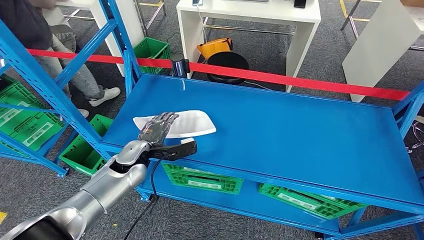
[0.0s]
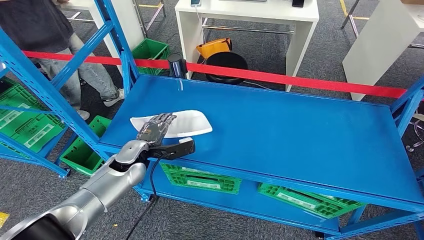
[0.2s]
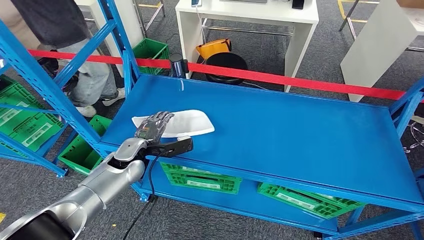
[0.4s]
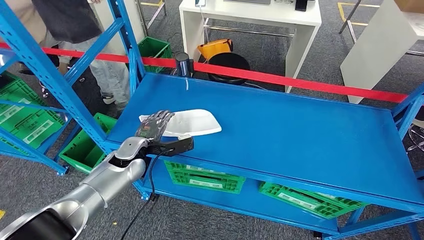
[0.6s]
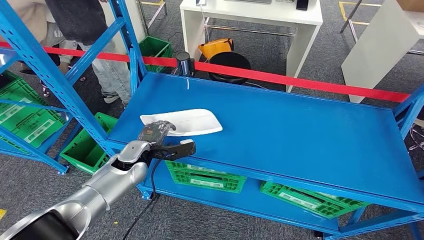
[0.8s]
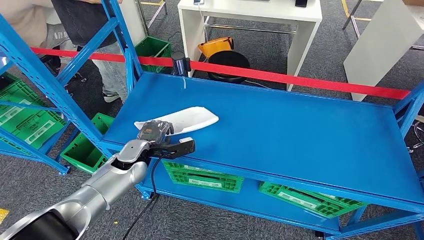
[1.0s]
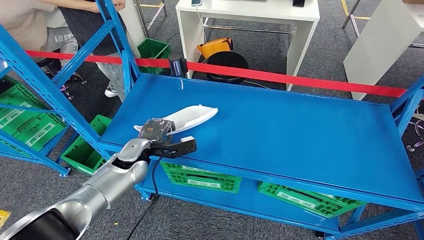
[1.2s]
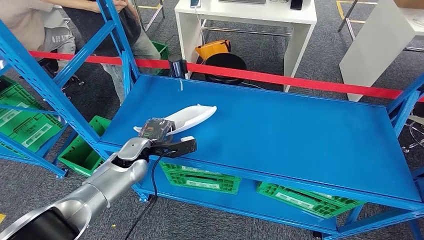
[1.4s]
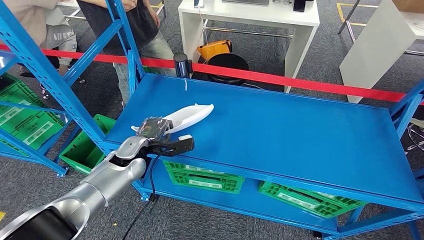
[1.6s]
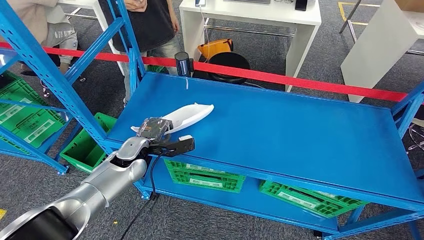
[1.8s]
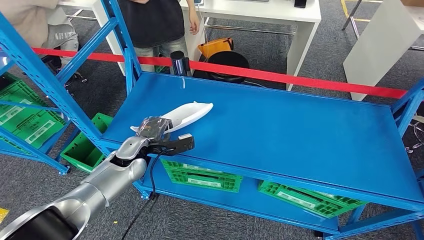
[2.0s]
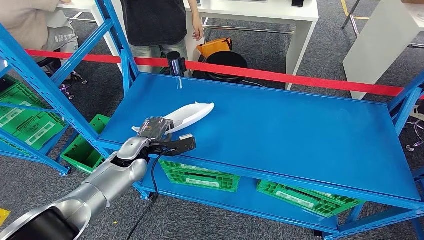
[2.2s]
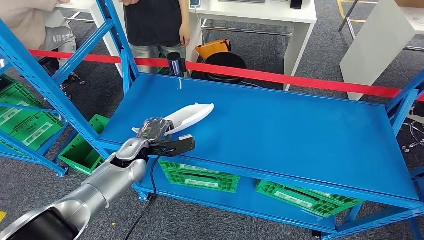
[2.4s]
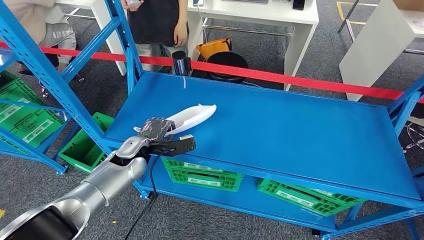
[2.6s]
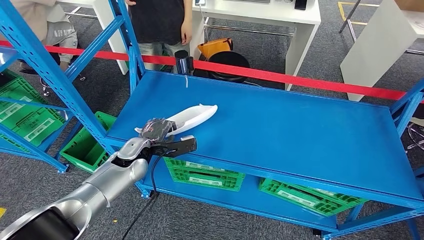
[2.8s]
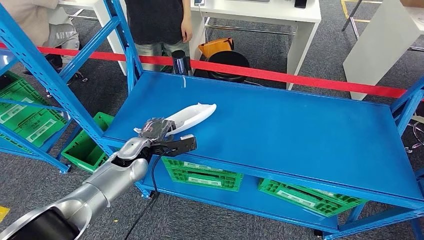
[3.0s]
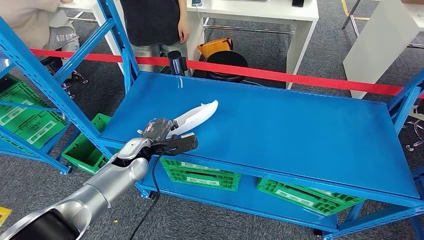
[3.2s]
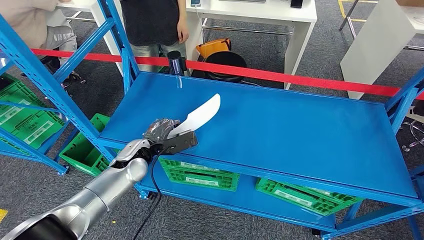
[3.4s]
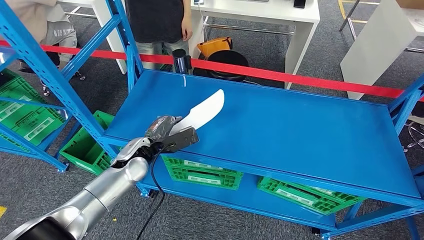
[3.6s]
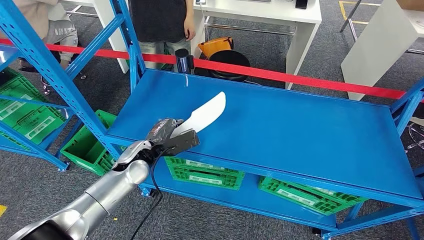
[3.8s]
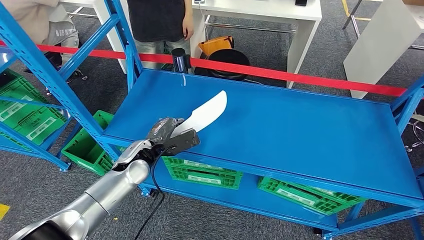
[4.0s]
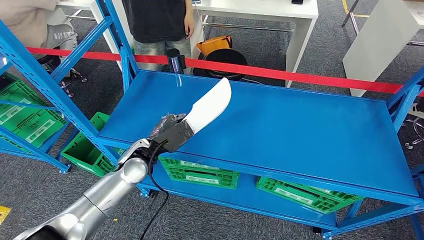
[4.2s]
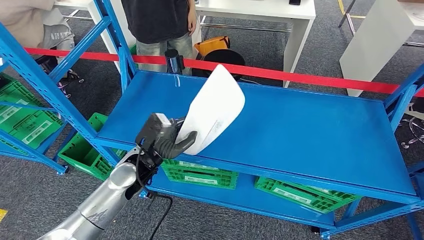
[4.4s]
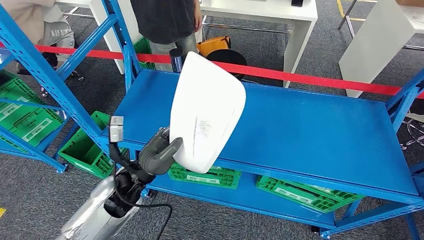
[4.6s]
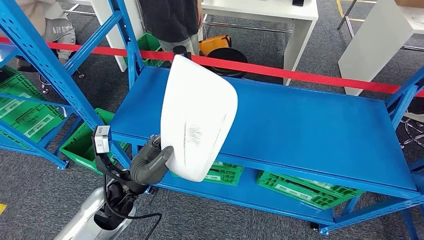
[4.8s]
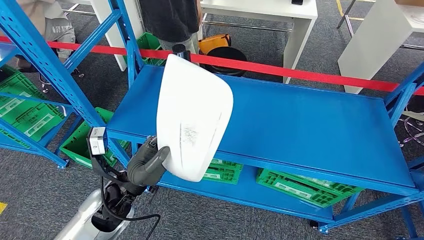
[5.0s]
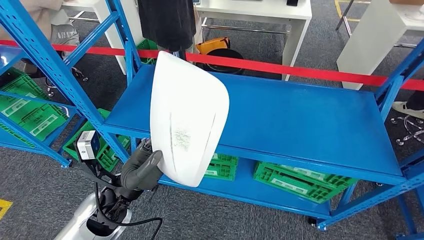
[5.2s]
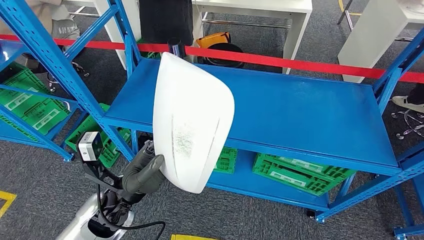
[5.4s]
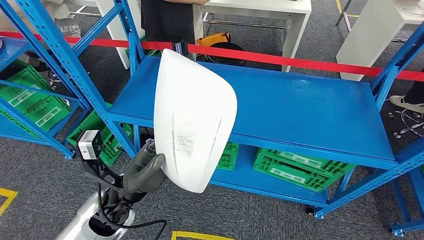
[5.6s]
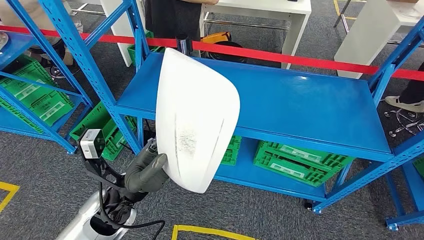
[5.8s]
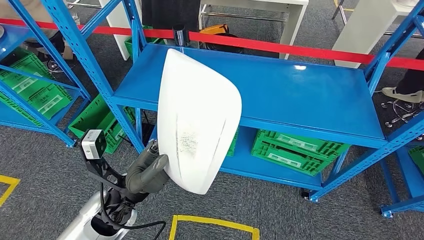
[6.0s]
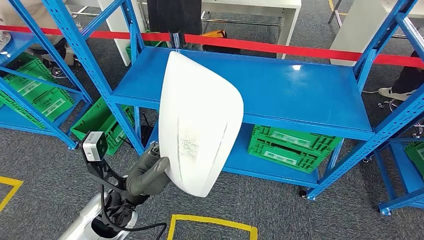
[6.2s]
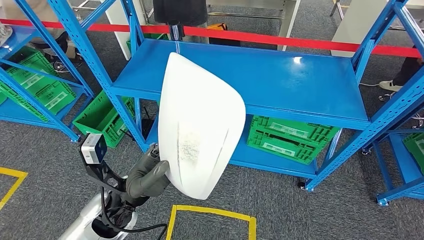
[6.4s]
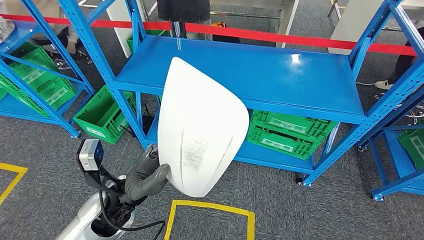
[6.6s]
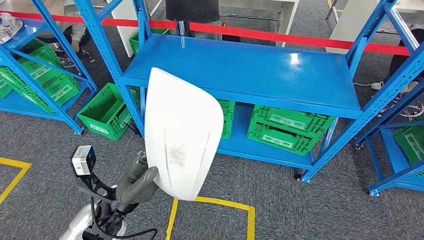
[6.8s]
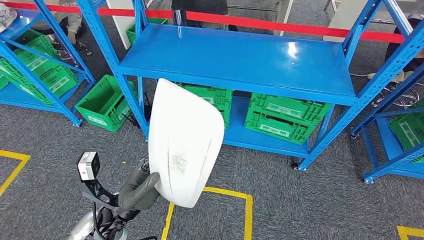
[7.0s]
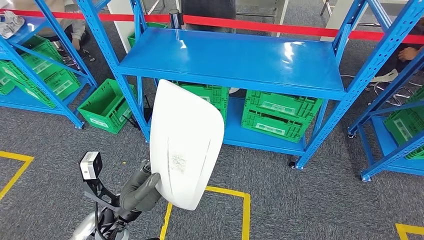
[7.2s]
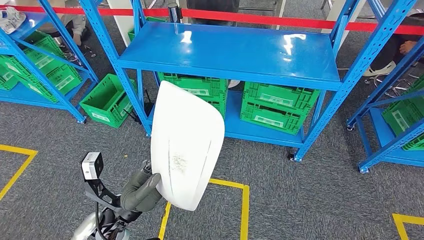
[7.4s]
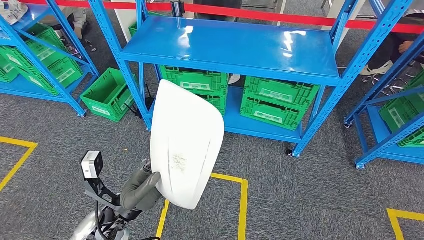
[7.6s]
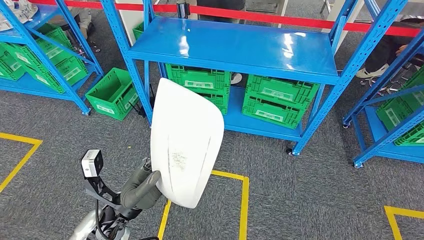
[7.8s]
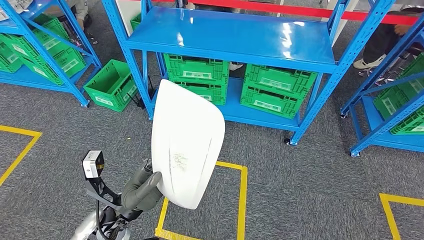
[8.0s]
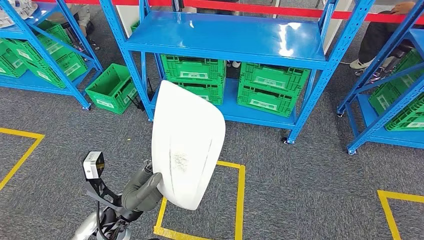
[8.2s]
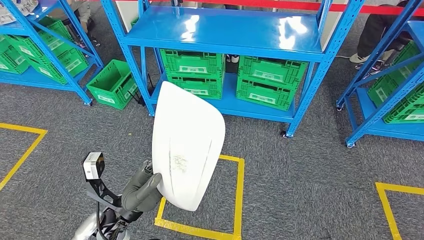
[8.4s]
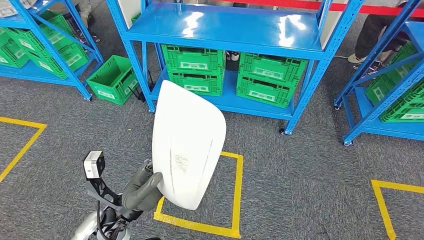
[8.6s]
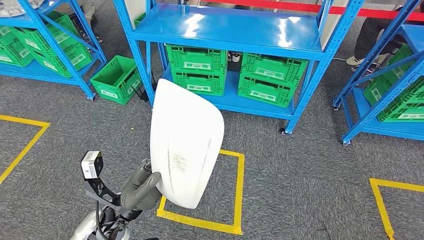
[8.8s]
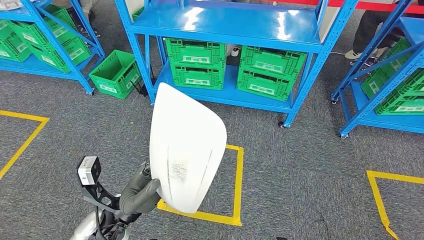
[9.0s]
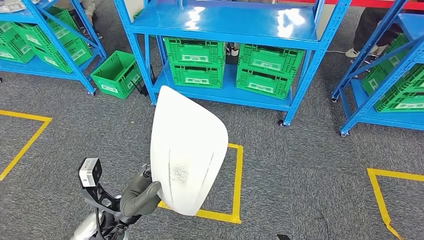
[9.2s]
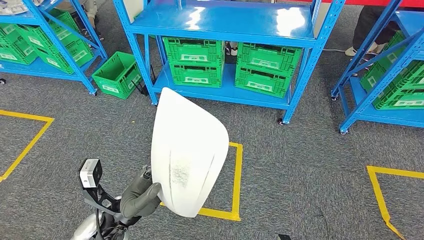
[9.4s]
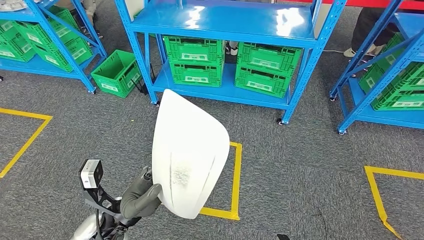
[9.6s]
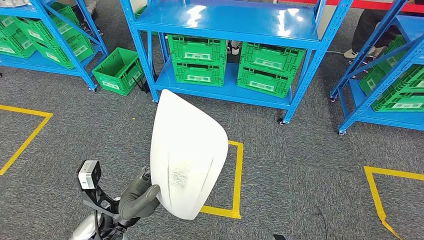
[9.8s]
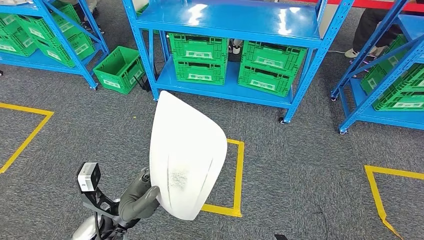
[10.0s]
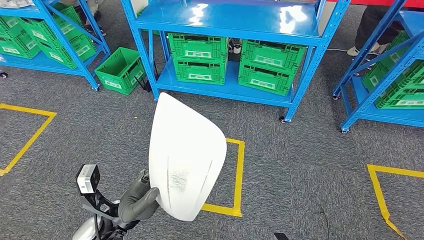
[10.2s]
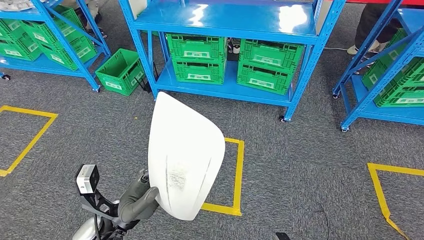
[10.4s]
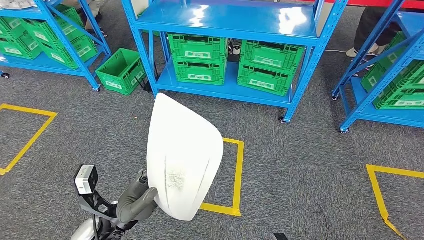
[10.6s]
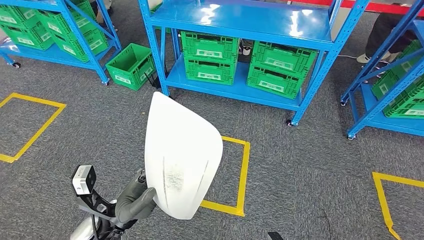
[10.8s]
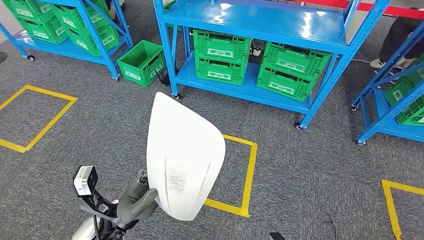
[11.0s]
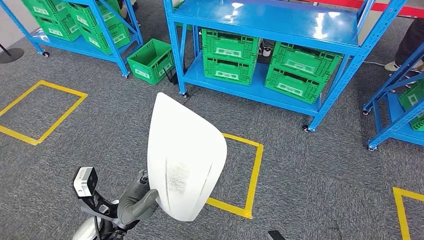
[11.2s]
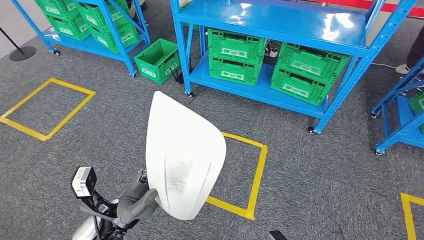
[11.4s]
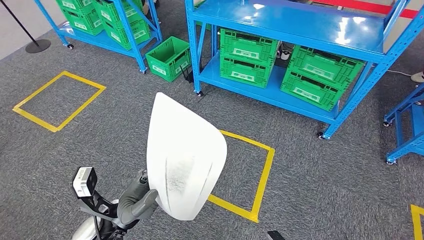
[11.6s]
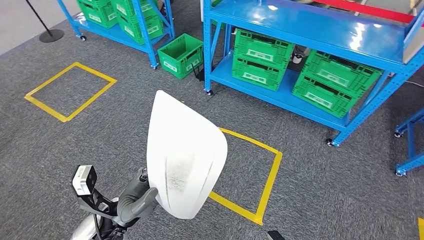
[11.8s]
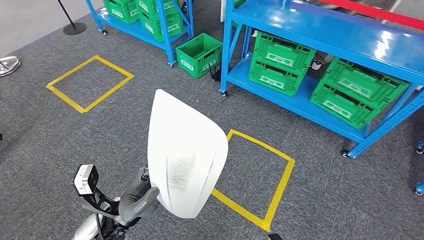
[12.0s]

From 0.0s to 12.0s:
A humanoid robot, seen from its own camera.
Step, from 0.0s to 4.8s: Pick up the small component from the shelf.

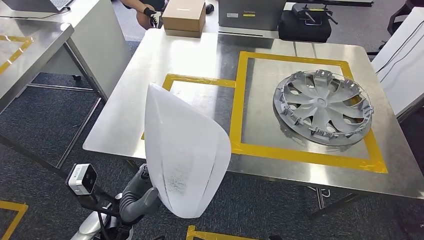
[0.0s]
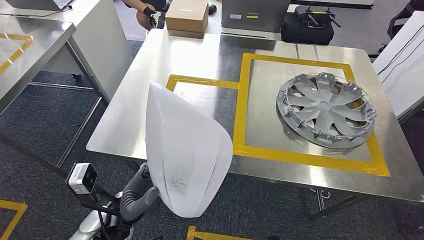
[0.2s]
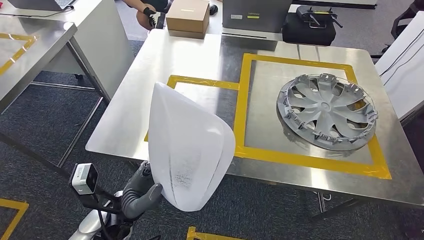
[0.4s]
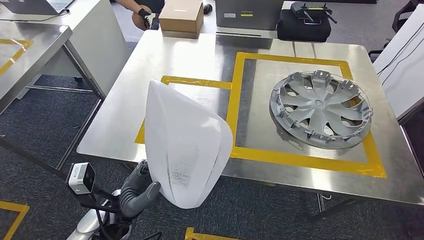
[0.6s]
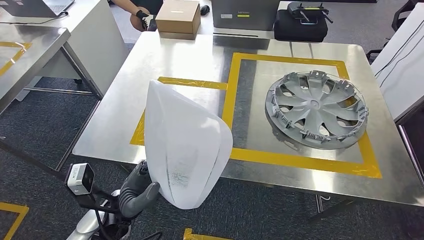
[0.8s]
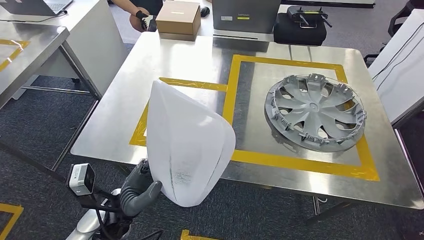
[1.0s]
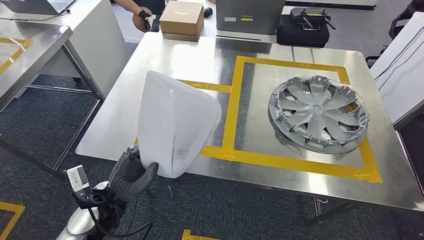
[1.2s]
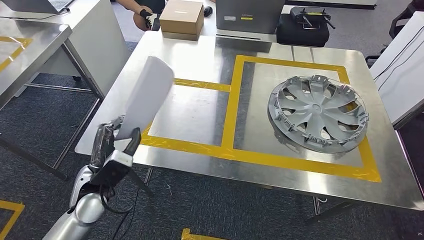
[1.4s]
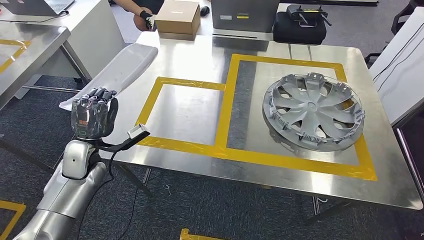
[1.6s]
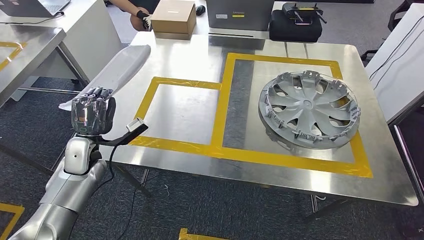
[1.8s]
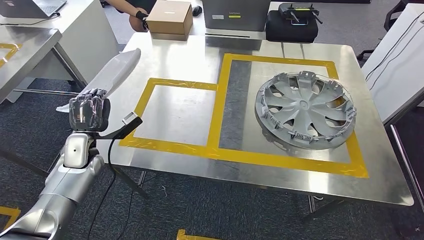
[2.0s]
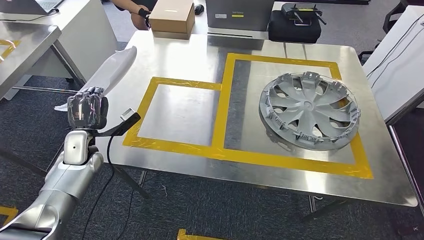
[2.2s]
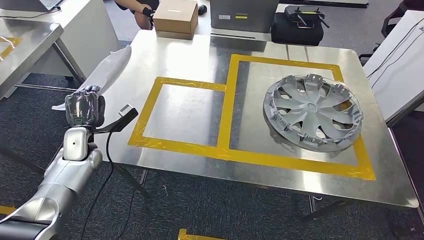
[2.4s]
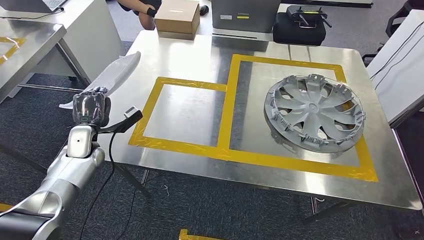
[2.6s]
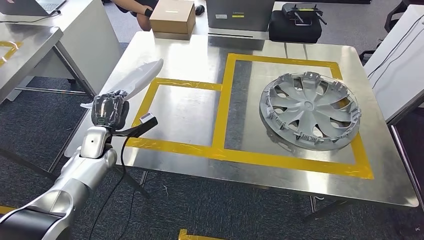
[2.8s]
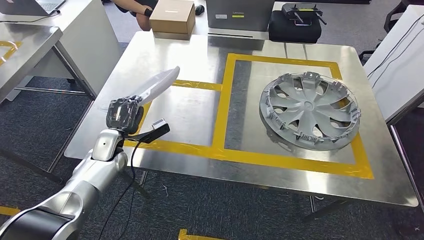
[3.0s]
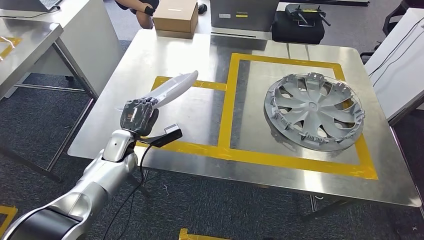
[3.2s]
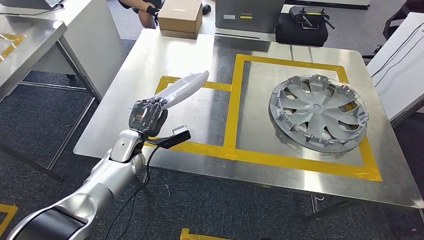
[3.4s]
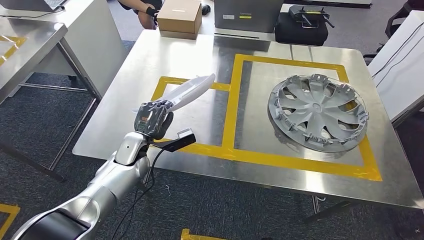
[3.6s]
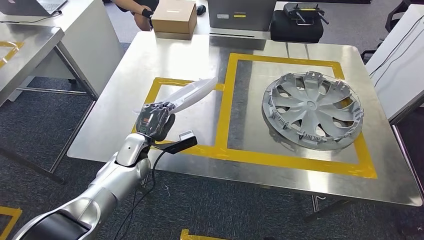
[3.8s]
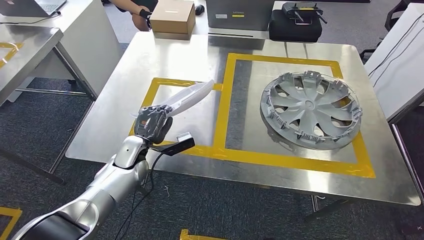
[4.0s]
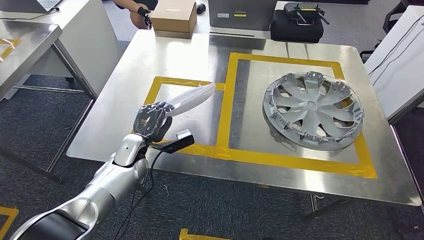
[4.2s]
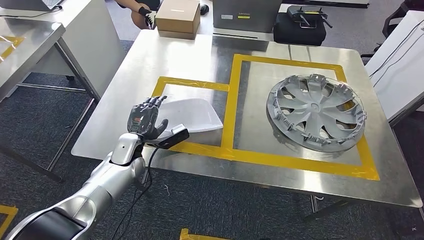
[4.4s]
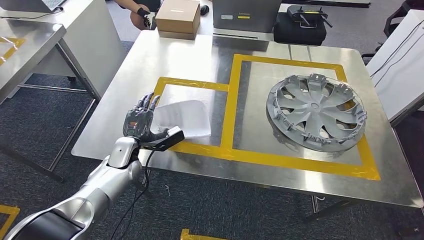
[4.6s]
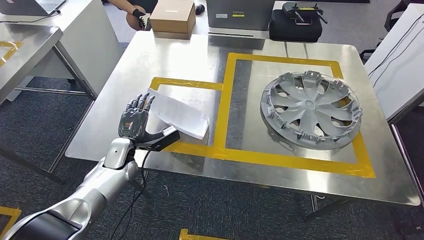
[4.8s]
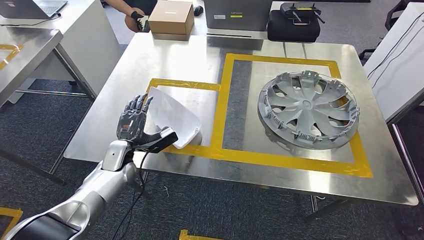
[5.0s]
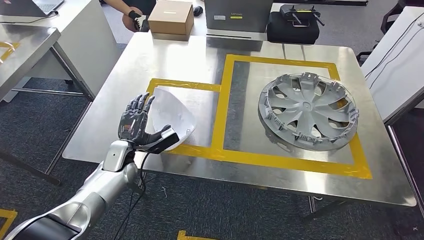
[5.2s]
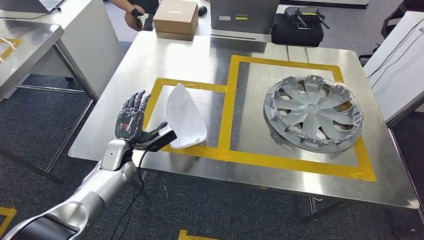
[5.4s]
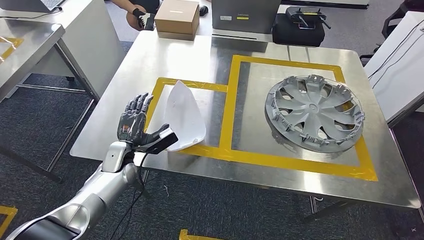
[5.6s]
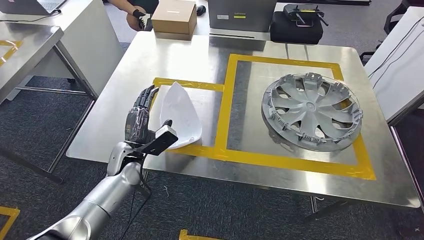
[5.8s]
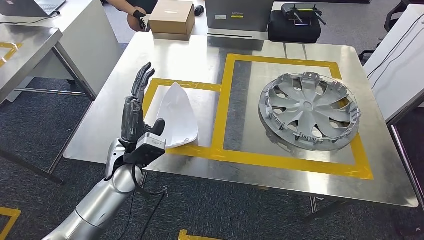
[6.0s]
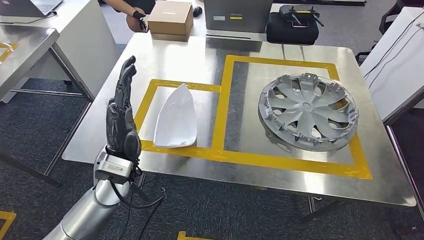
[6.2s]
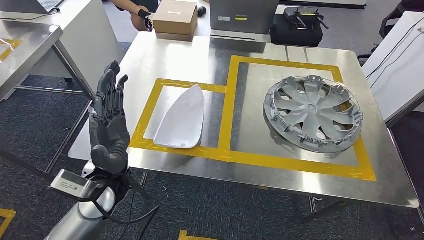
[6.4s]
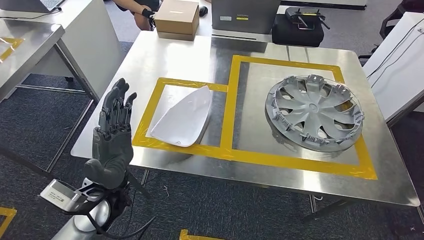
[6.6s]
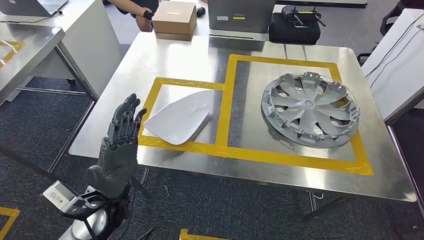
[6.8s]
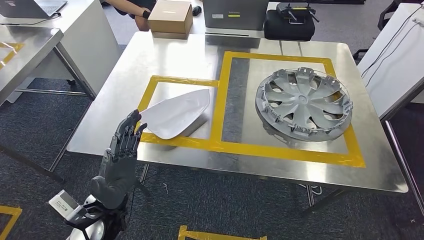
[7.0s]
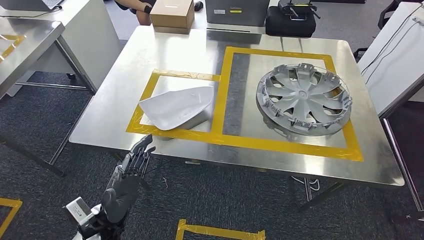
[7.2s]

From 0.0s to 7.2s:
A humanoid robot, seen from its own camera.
Step, from 0.0s to 2.4s: Move the small component to the workbench.
Step, from 2.8s to 5.6s: Insert the small component into the corresponding slot on the workbench.
